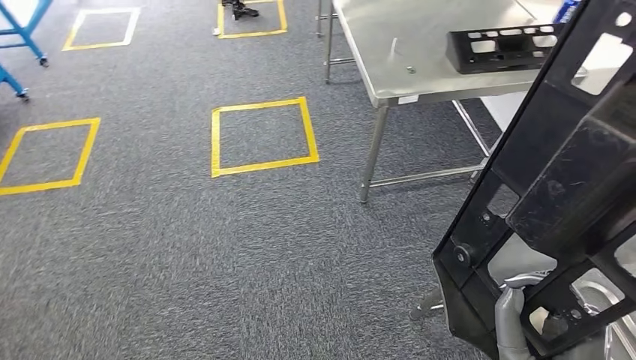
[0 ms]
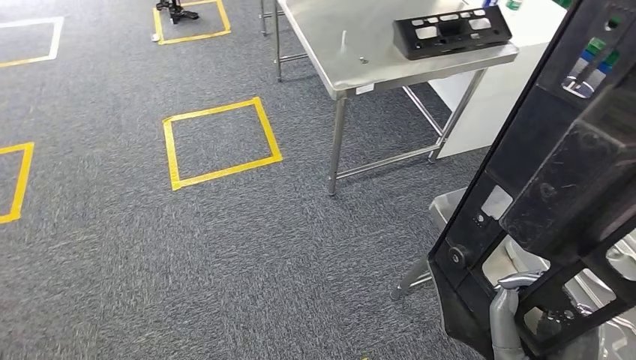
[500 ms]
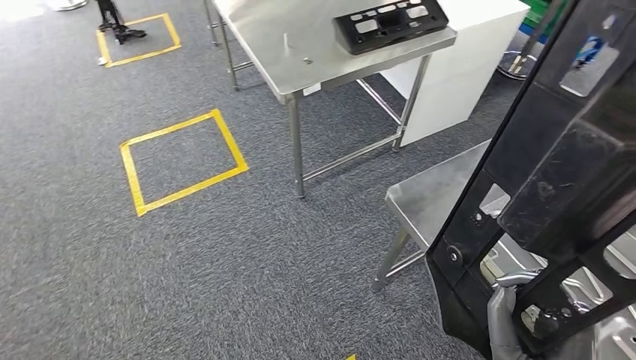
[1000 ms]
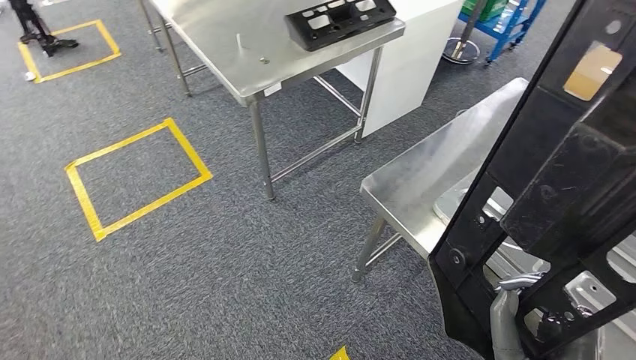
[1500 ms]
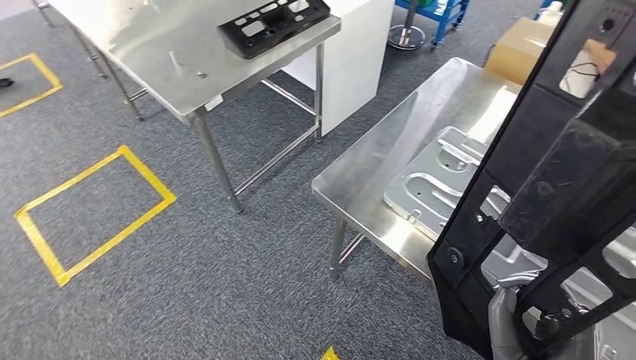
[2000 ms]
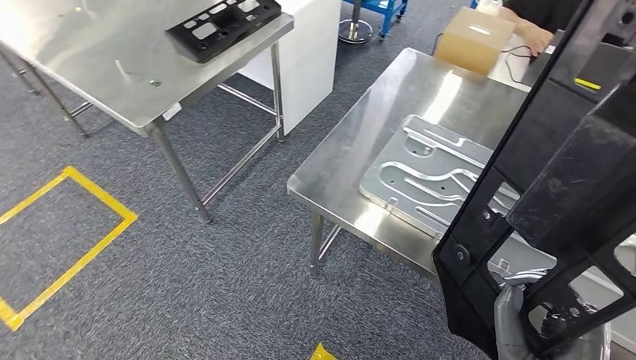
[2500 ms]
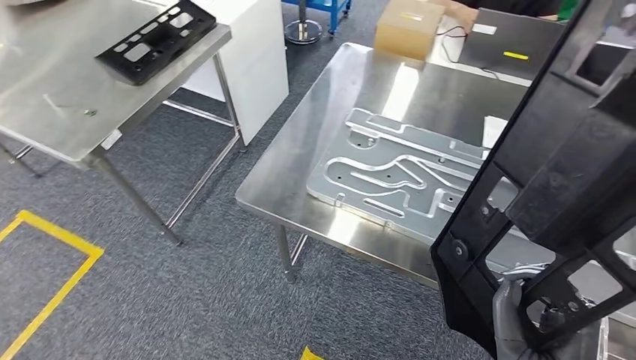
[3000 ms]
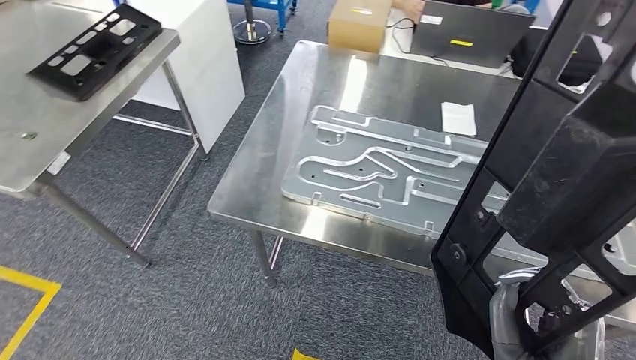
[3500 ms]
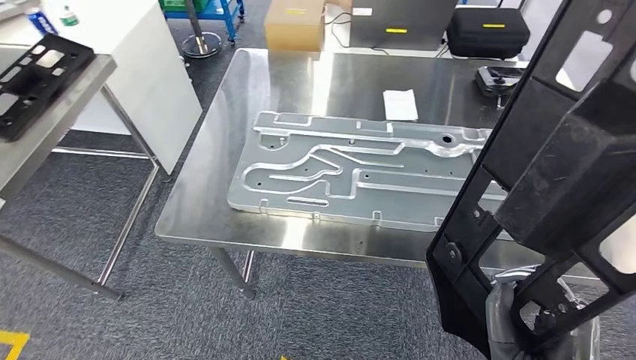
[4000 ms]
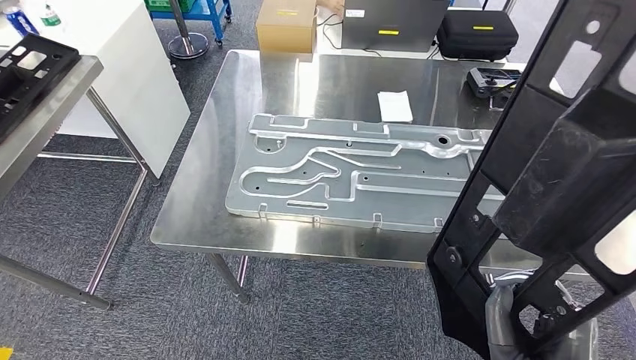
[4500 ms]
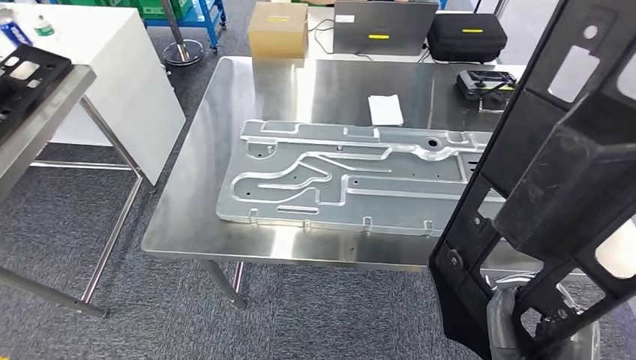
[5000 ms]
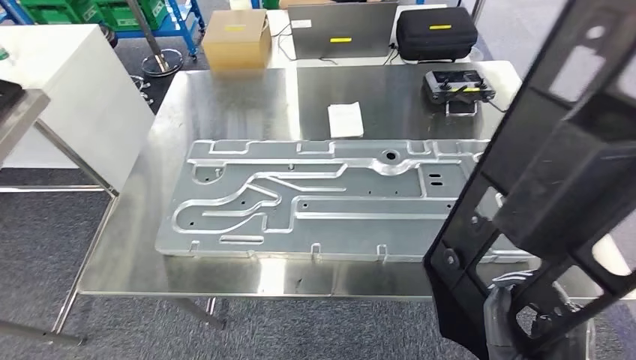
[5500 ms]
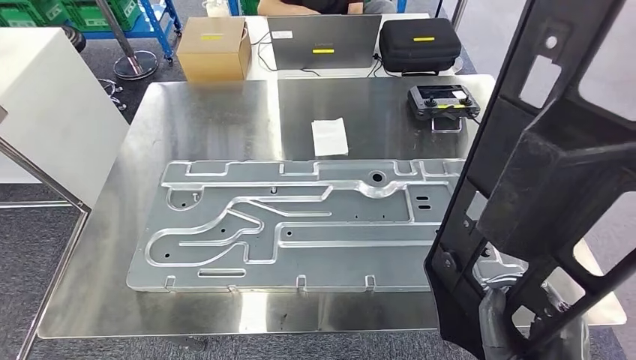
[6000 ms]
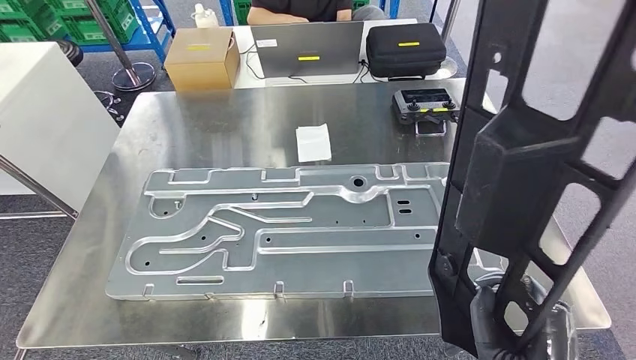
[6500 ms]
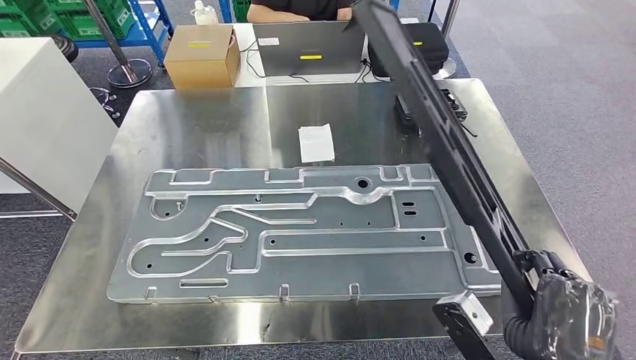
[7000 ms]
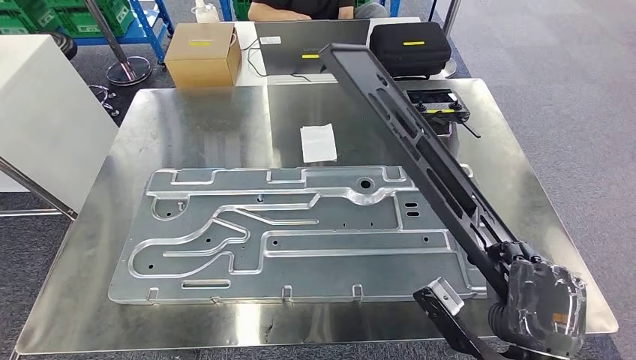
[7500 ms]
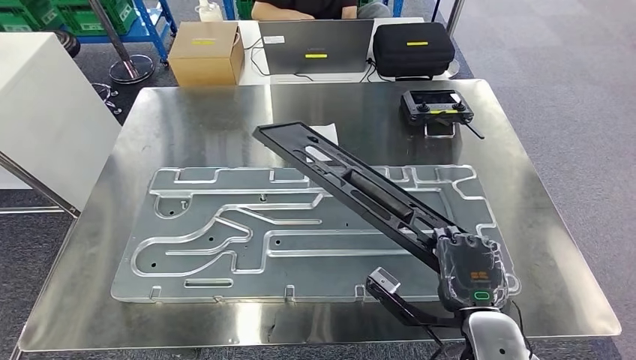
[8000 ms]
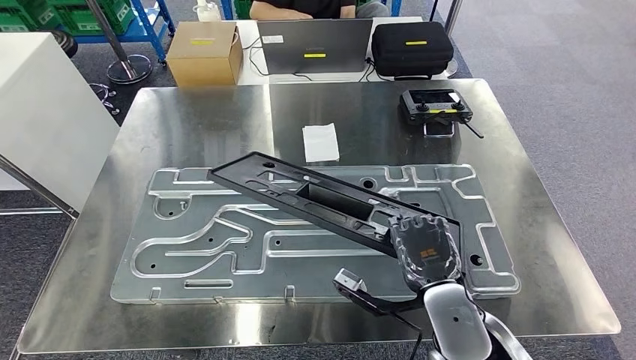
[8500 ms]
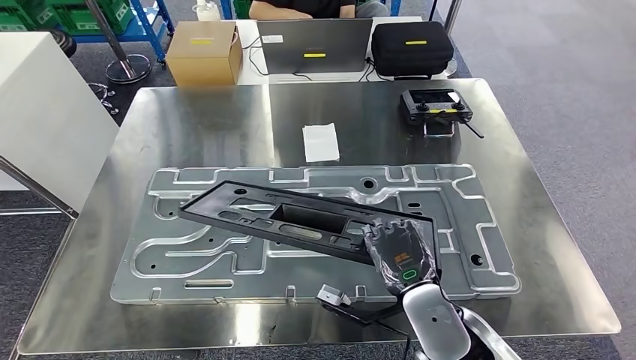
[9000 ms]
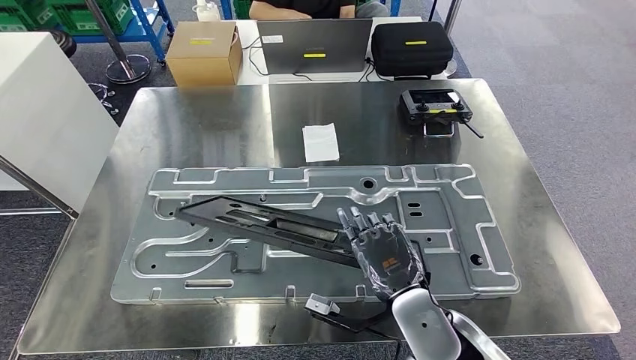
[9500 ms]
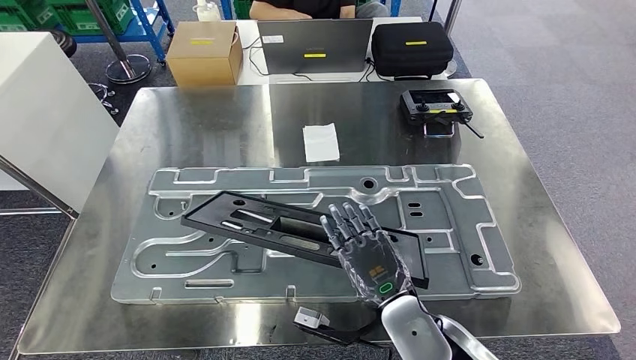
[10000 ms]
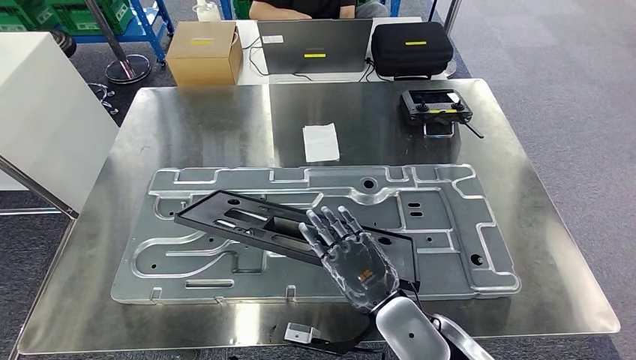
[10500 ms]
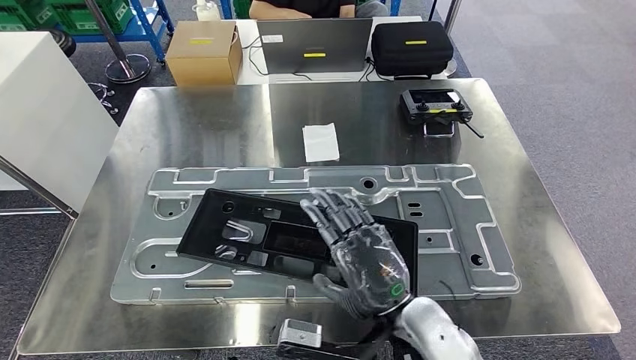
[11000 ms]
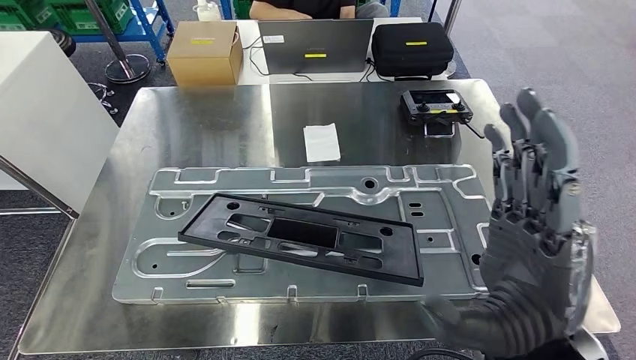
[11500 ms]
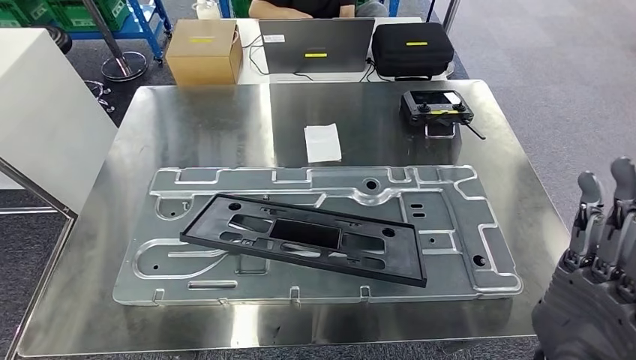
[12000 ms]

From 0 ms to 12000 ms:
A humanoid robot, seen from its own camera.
Step, from 0 ms to 5000 ms: Move the large material to the front of the workbench.
From 8000 ms to 10000 ms: The right hand goes some 10 cm to the left.

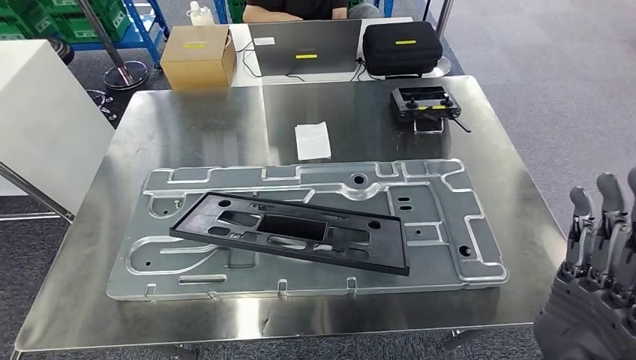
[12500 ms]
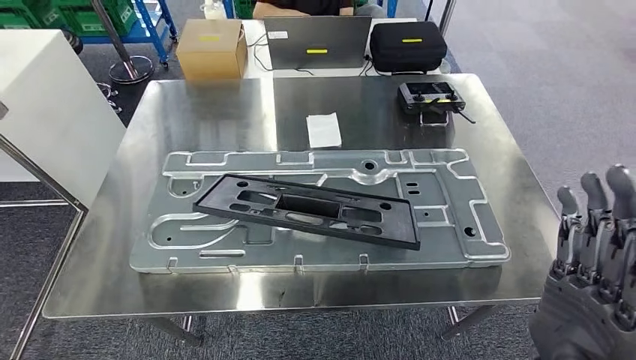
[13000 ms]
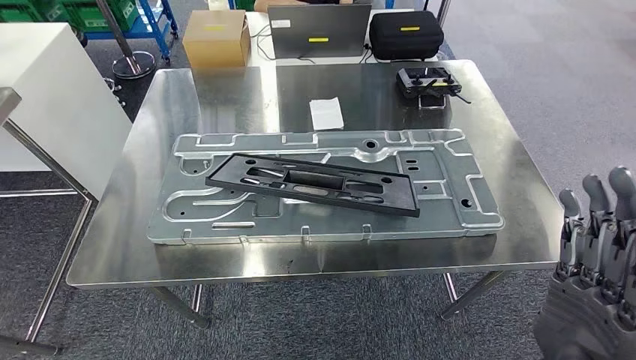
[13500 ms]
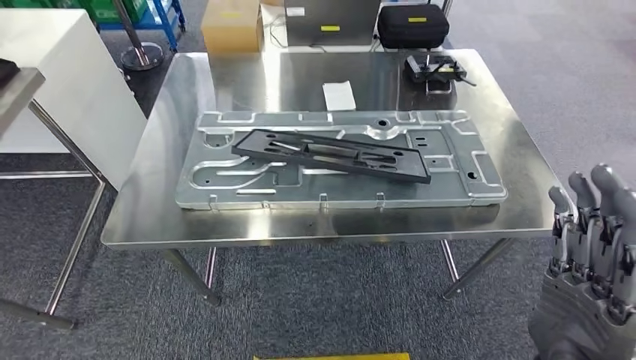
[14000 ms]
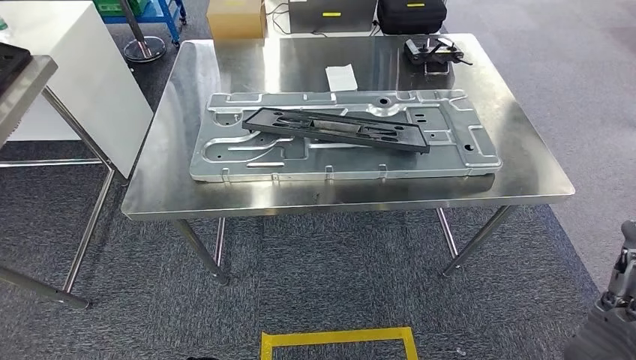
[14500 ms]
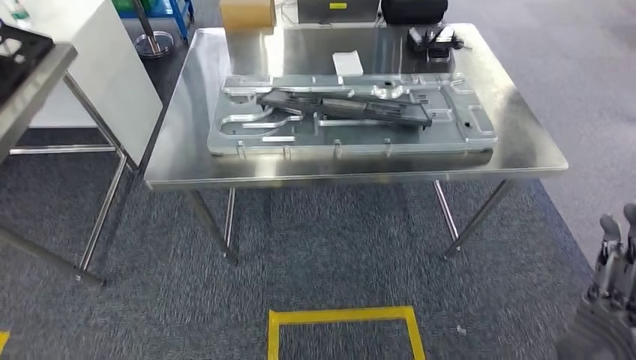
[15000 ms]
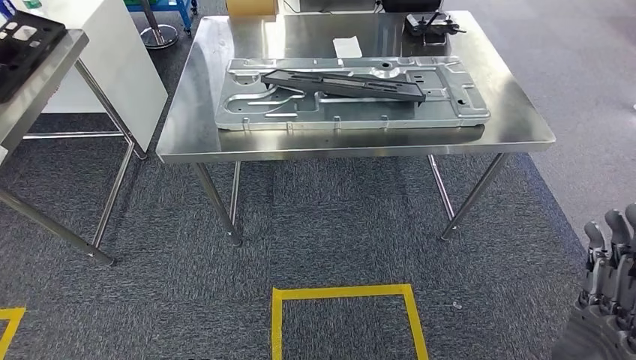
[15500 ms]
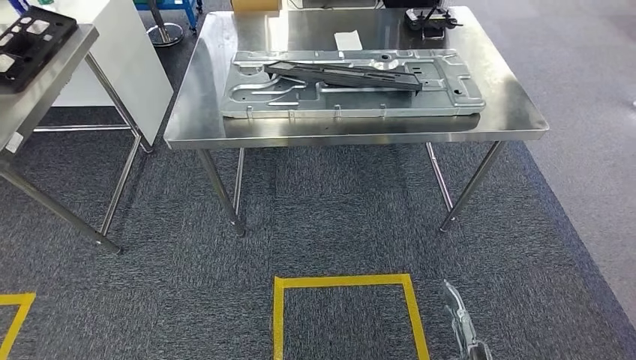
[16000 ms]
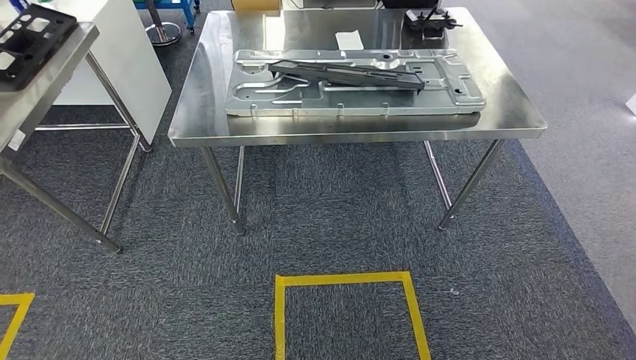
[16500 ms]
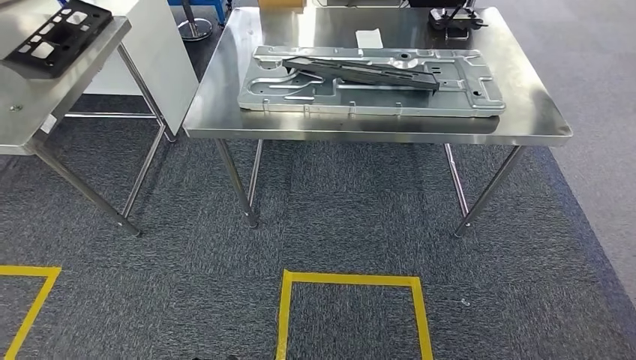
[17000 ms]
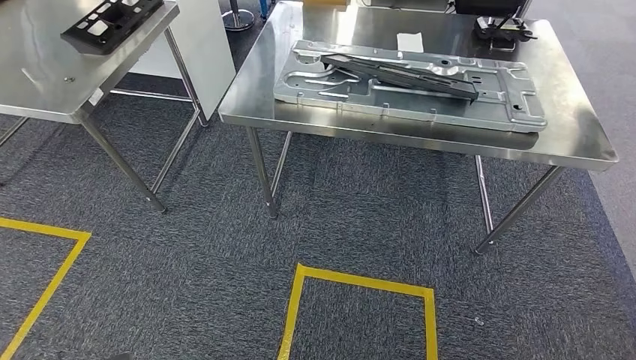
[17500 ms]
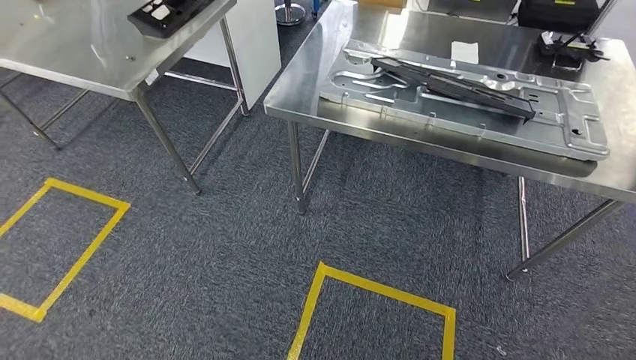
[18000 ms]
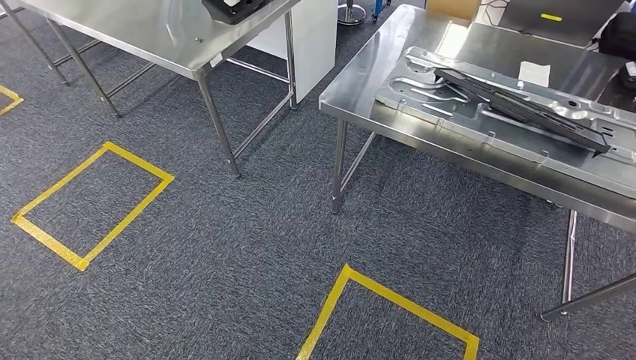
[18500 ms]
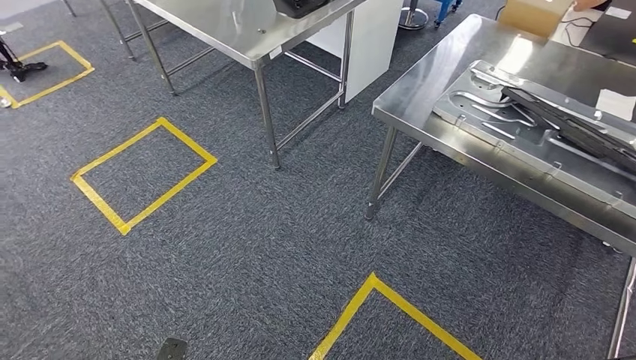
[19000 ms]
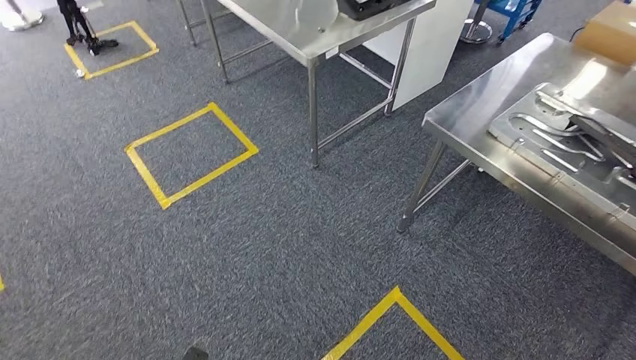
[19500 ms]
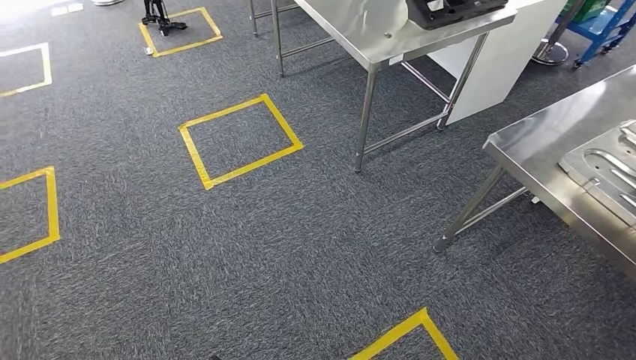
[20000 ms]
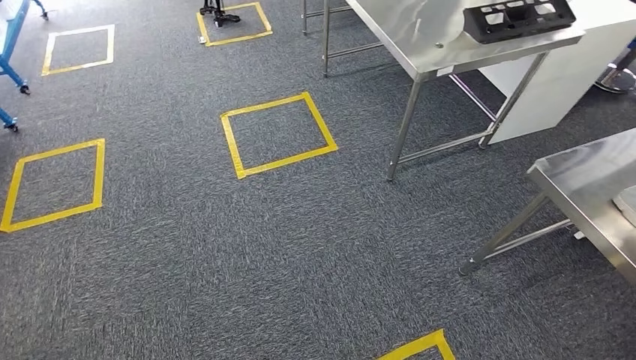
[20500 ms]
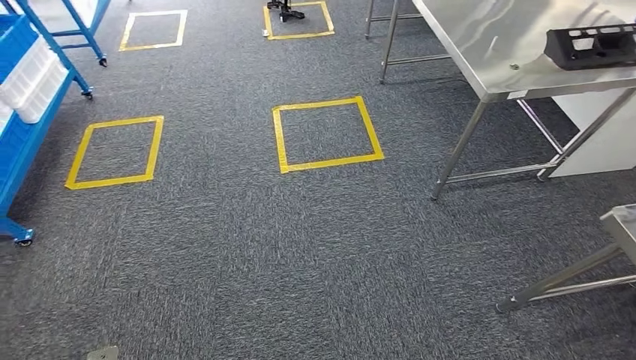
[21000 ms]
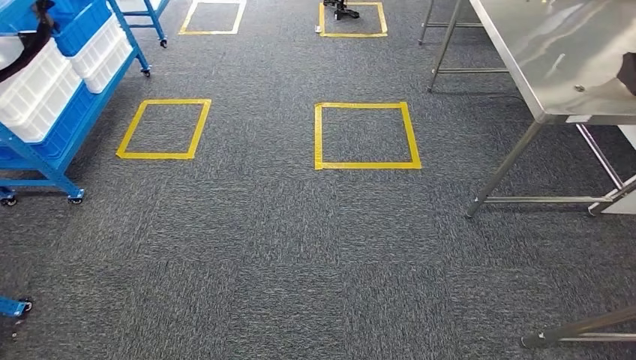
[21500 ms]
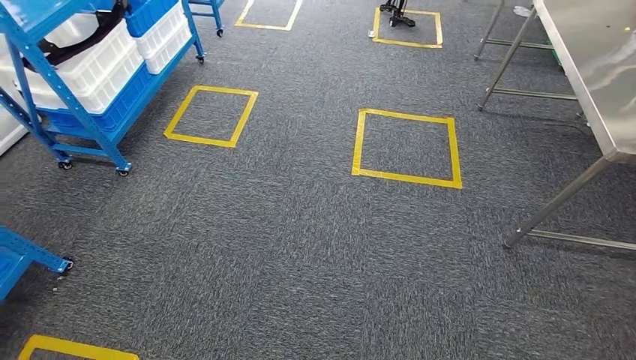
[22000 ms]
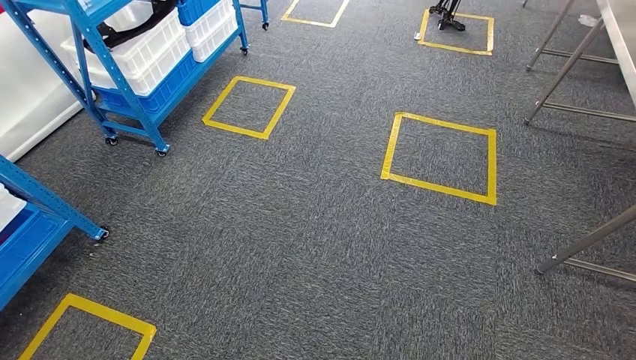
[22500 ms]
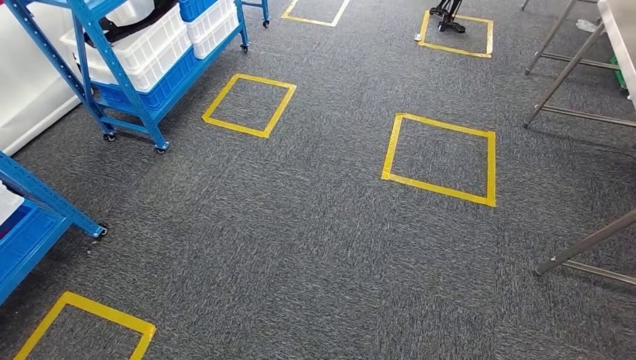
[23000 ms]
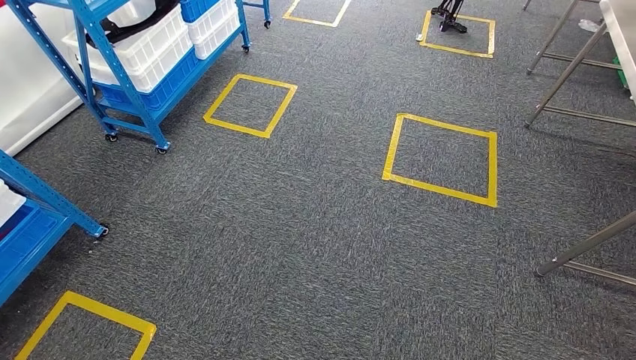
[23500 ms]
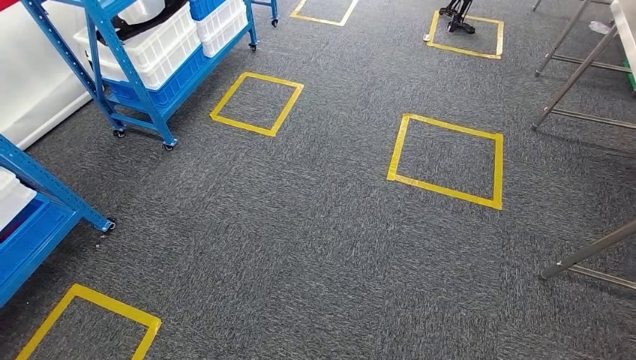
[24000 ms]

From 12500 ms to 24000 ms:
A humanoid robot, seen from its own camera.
Step, from 12500 ms to 14500 ms: Insert the large material into the corresponding hole on the workbench.
